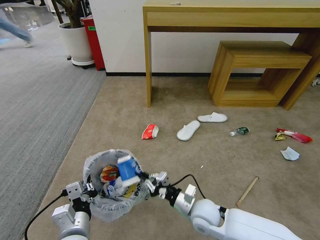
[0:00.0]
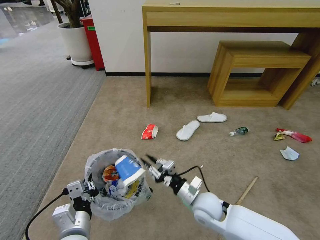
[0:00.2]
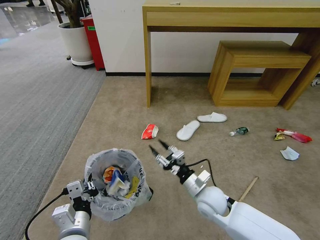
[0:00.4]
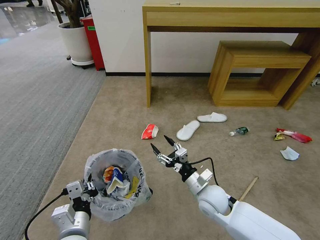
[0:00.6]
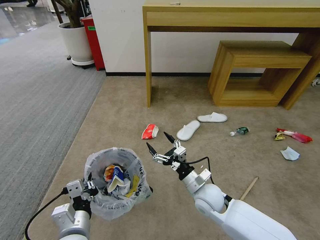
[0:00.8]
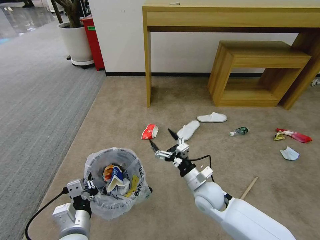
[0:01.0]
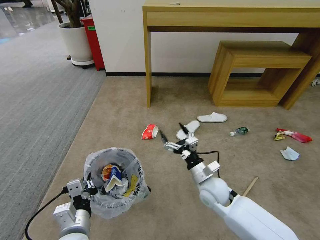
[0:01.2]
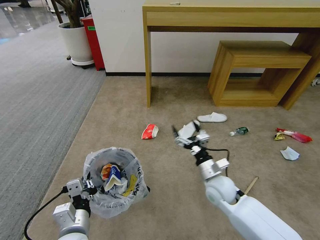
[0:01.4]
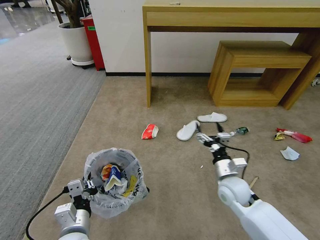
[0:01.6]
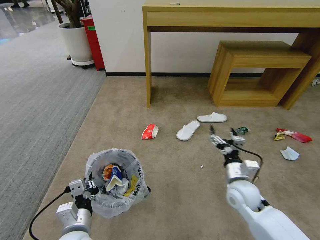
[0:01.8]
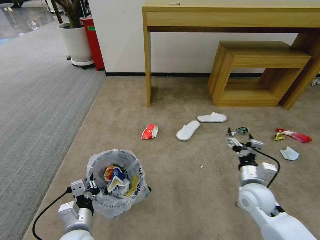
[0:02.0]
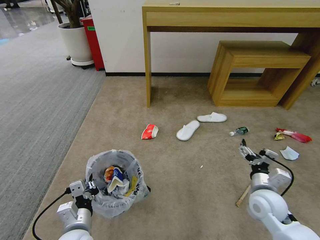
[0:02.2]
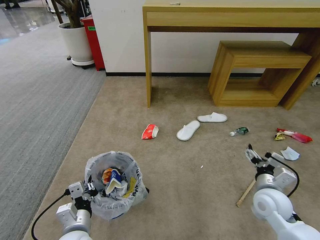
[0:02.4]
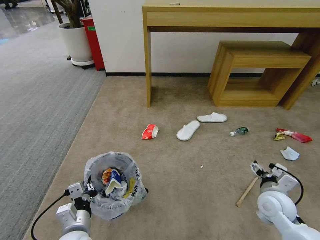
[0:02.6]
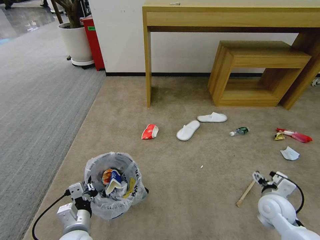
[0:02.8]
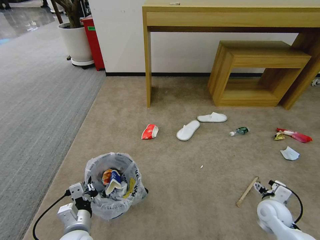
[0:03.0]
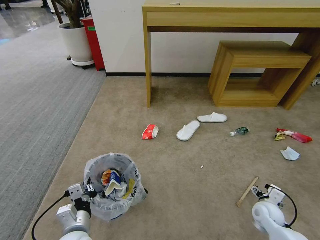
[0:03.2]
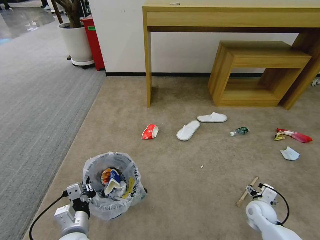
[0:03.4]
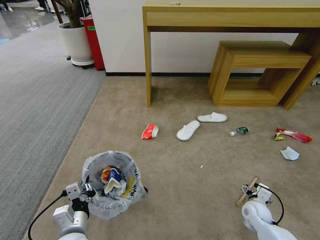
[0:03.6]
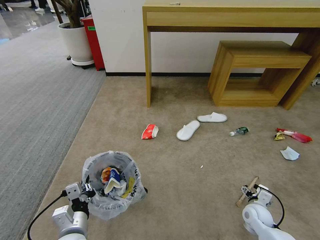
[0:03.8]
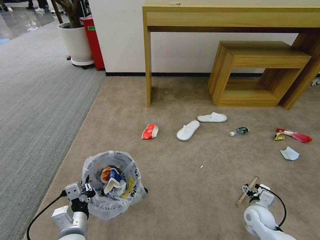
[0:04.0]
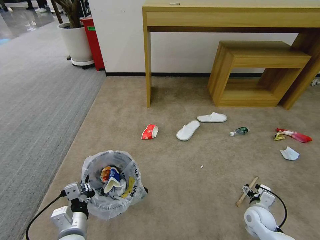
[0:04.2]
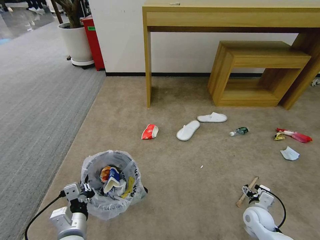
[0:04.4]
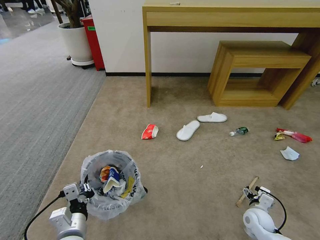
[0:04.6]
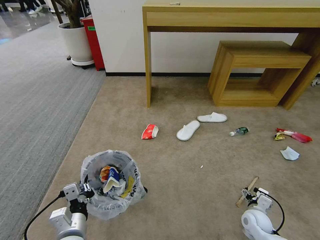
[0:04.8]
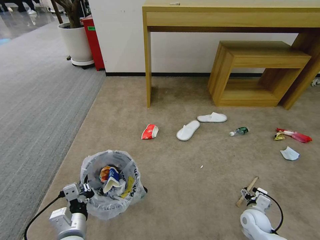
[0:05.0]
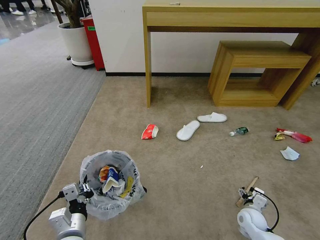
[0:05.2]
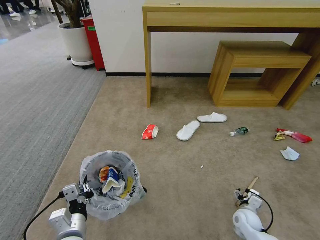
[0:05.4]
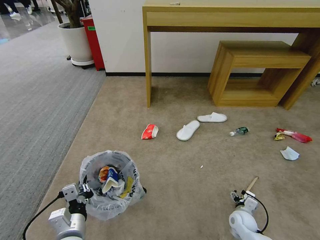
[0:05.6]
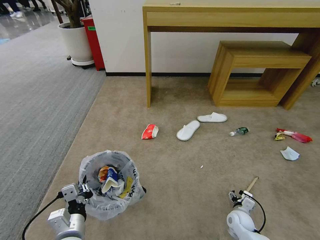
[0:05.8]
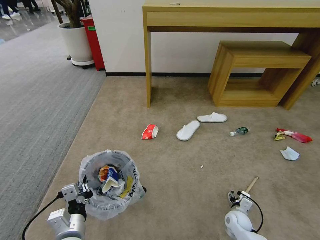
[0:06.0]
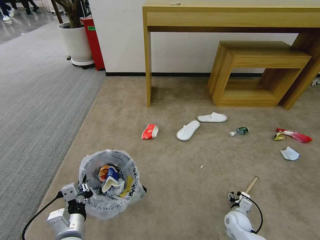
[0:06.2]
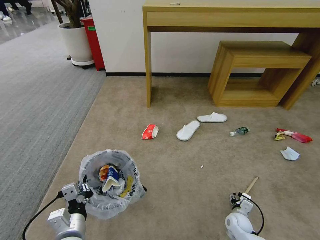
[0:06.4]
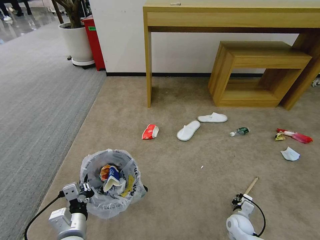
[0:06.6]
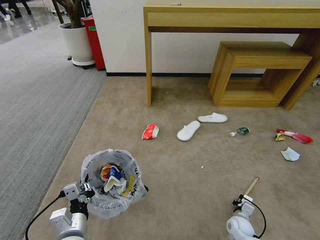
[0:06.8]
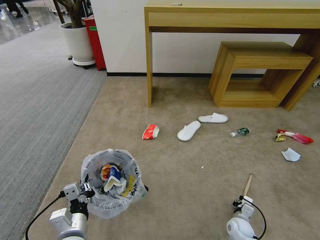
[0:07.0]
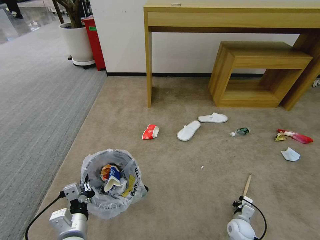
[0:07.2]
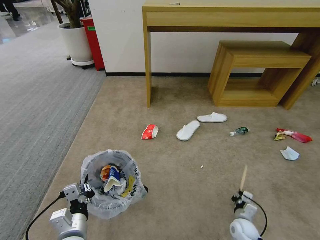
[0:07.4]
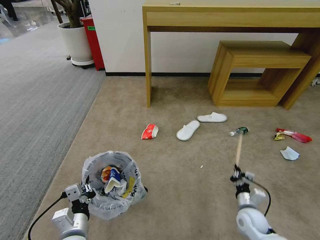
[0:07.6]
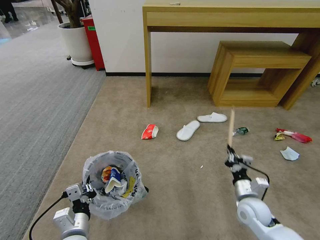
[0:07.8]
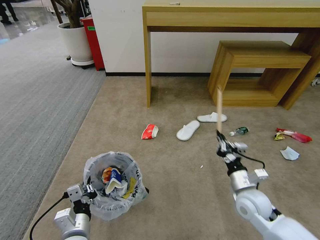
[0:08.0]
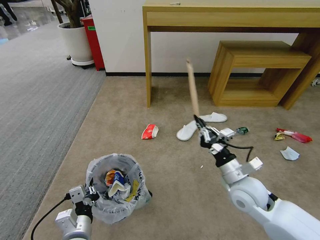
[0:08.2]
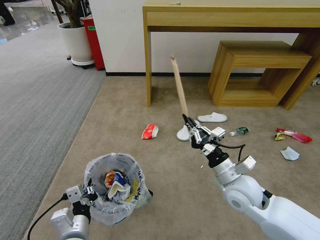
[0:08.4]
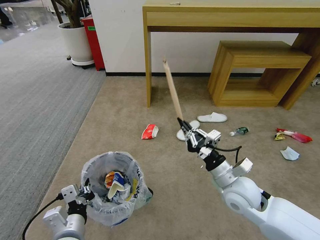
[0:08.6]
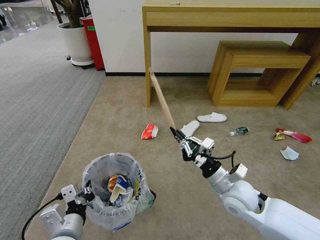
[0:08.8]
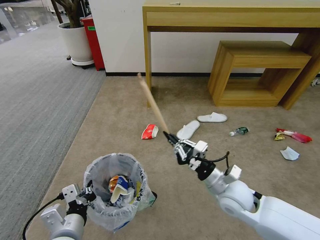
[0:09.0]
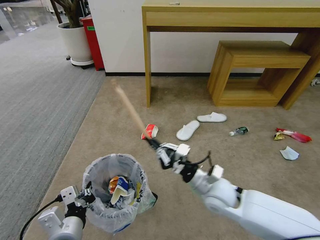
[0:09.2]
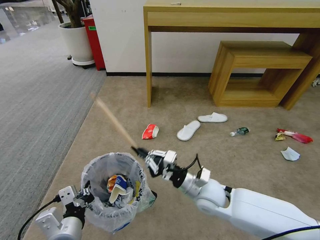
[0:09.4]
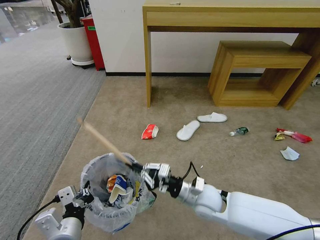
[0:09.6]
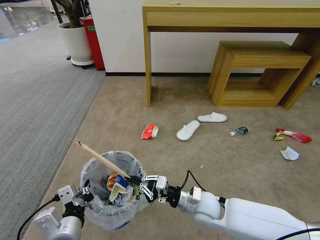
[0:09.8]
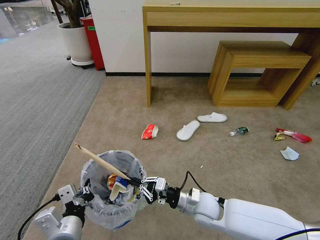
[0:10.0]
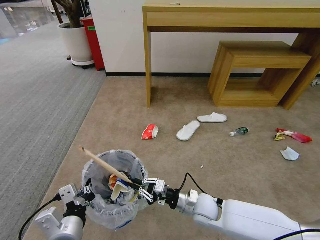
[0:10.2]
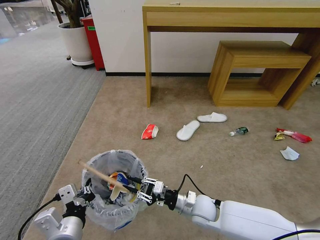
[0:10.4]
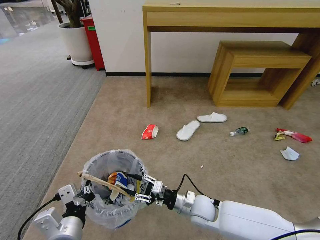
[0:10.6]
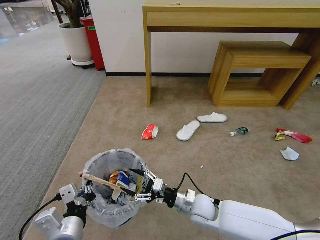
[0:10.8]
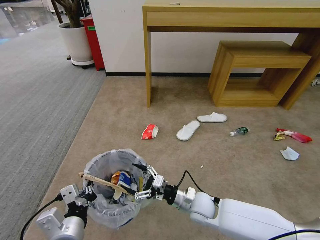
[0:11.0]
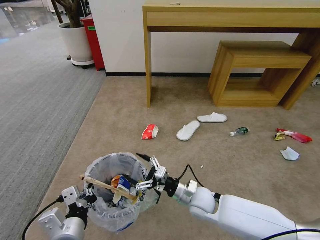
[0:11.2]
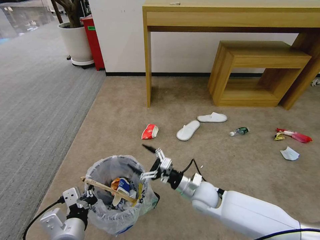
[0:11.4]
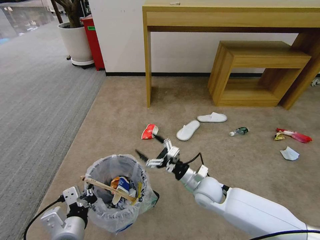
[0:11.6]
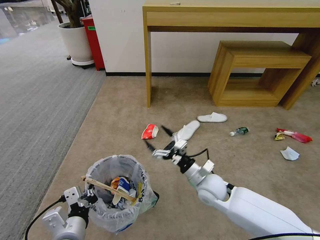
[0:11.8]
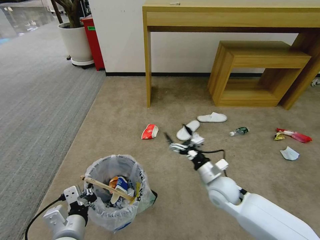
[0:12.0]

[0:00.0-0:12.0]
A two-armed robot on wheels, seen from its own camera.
Task of the whole recording: Pick up the trash bin and place the garbage on the floor into it.
0:00.0 to 0:01.6: The right gripper moves to the right and forward, roughly 10 cm, and opens.
0:01.6 to 0:03.0: The right gripper is displaced to the right and downward by approximately 20 cm.
0:03.0 to 0:04.4: The right gripper goes about 5 cm downward.
0:04.4 to 0:06.0: The right gripper moves downward, some 10 cm.
0:06.0 to 0:07.6: The right gripper moves upward, roughly 5 cm, and closes its fingers.
0:07.6 to 0:09.0: The right gripper moves upward and to the left, roughly 25 cm, while the left gripper shifts about 5 cm upward.
0:09.0 to 0:10.4: The right gripper heads downward and to the left, covering roughly 15 cm.
0:10.4 to 0:12.0: The right gripper shifts roughly 10 cm upward and to the right, and opens up.

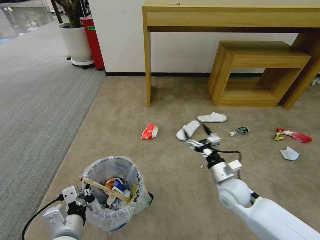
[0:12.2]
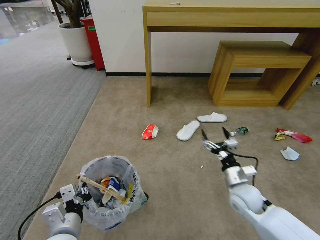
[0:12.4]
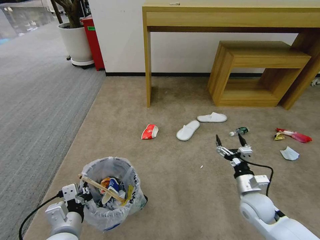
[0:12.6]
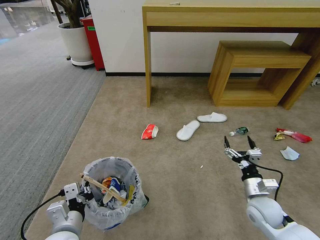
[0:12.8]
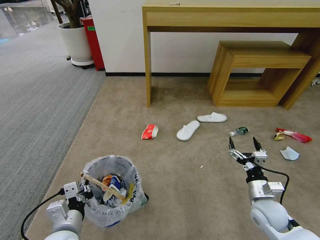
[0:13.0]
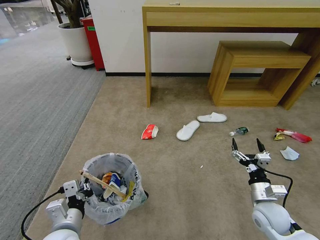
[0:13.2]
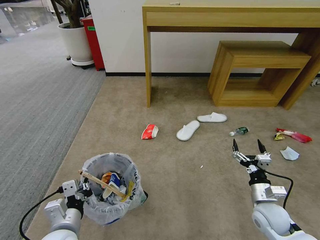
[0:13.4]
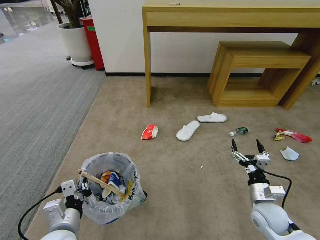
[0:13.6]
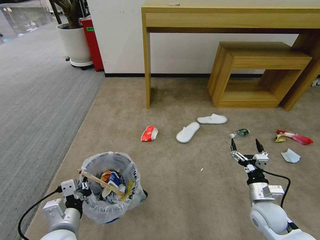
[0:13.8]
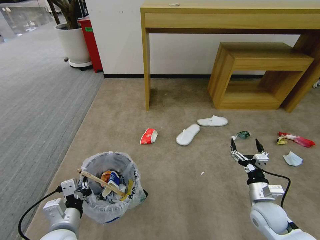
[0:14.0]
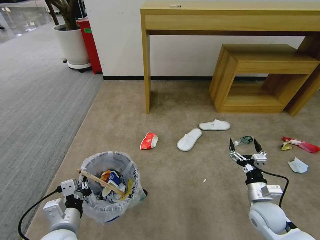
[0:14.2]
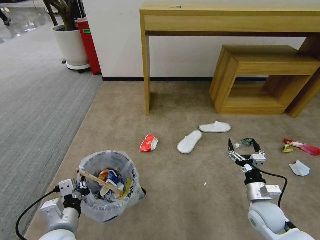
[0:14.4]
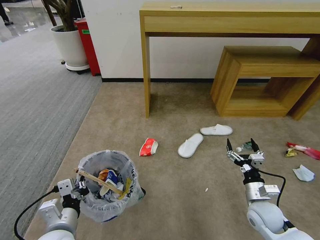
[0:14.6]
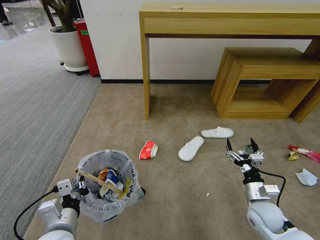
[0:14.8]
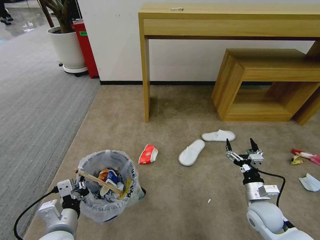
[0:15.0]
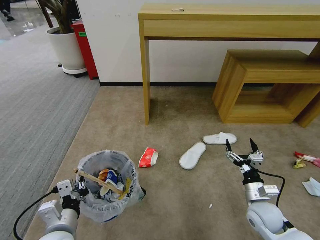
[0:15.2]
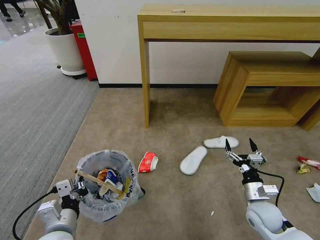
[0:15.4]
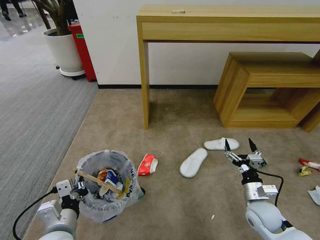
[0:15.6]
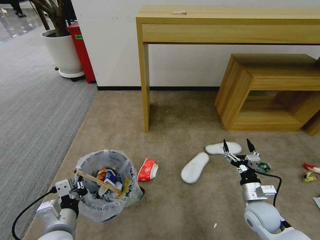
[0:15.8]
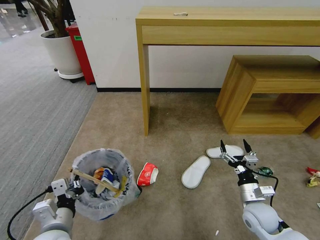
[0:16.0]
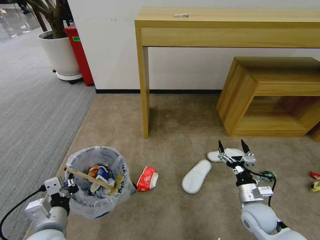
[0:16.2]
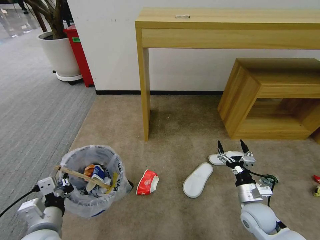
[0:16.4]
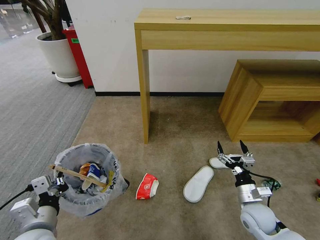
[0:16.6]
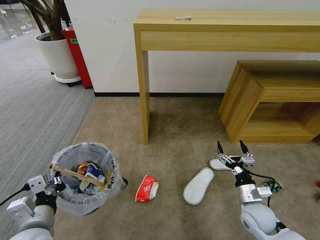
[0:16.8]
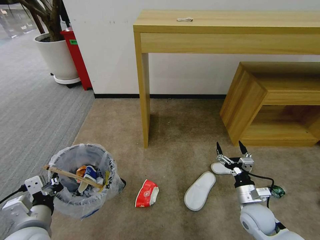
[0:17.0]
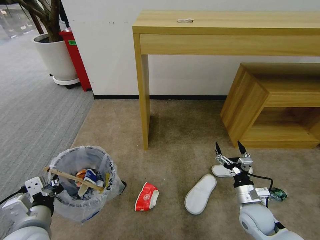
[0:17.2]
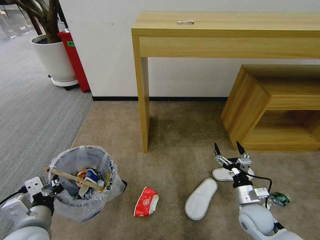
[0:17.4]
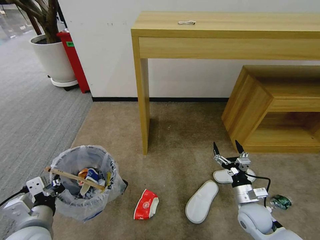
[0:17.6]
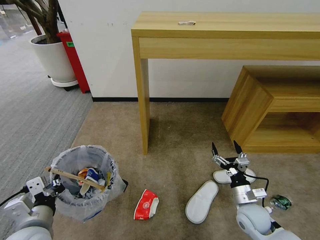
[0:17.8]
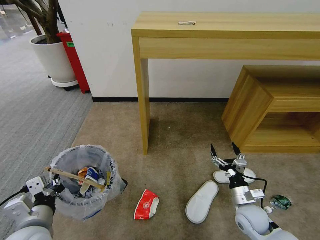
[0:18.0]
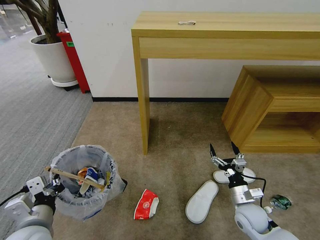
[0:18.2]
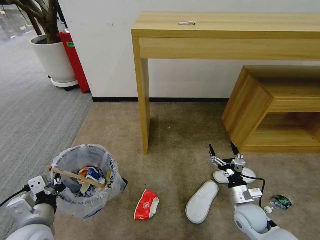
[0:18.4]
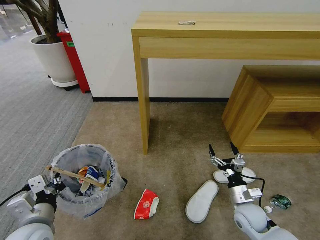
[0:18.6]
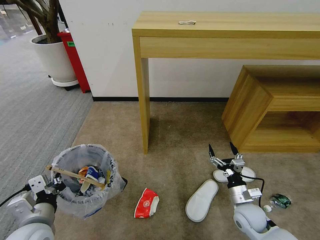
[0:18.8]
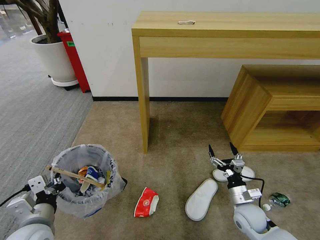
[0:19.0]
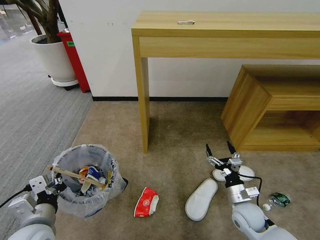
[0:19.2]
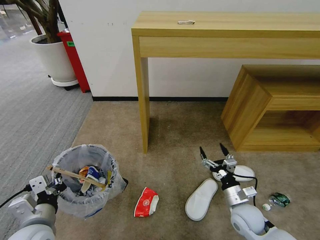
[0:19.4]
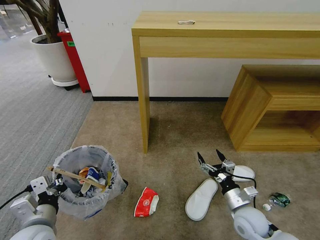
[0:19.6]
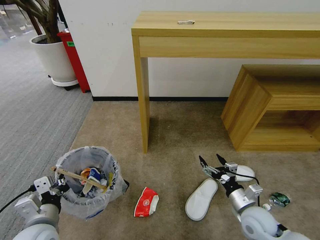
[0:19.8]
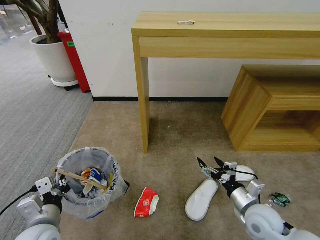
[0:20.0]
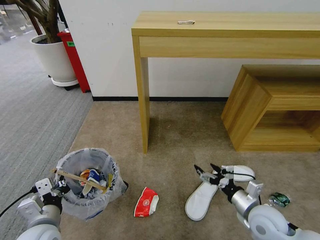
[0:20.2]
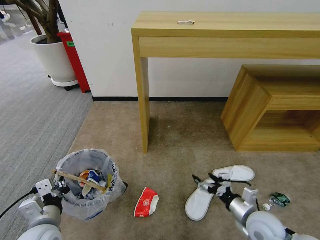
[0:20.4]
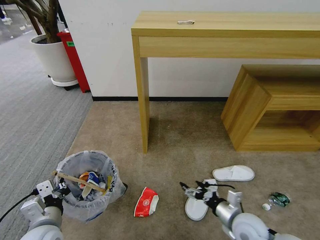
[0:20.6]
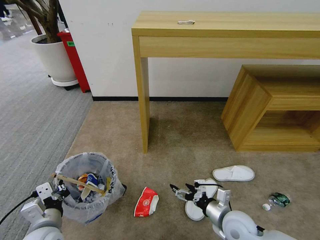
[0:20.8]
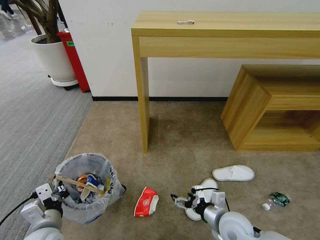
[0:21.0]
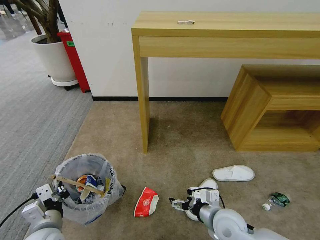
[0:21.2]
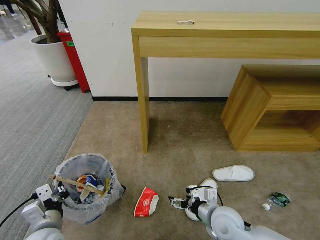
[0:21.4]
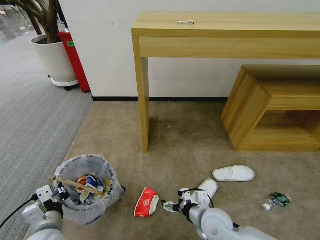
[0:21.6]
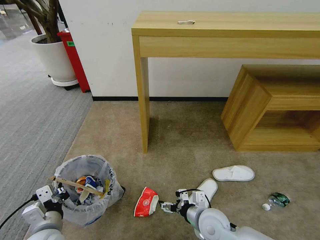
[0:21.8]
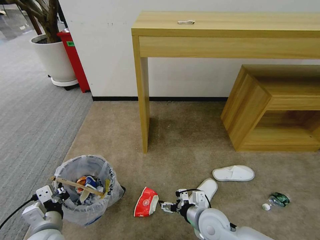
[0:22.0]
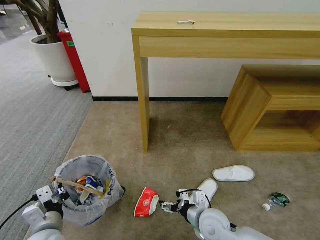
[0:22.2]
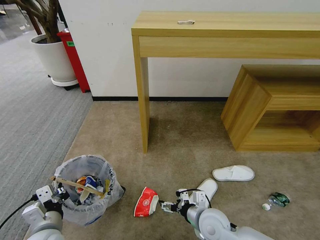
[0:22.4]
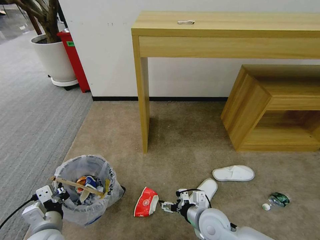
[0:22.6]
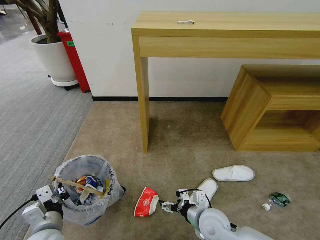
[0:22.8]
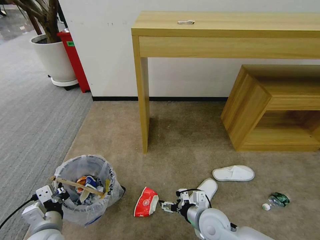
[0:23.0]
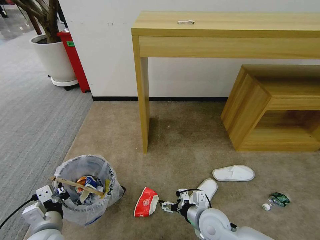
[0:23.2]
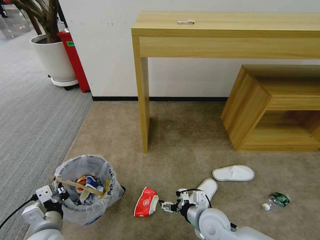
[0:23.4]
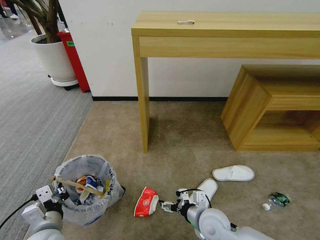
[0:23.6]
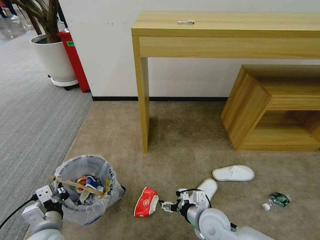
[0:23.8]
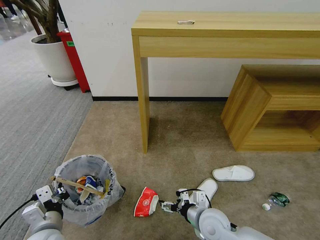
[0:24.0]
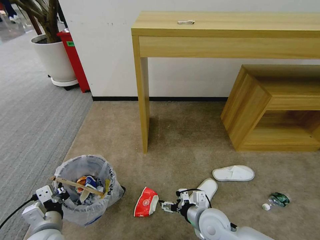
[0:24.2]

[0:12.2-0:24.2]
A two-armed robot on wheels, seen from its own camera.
Task of the whole recording: Pick up the trash bin and place the garbage on the floor into it.
0:12.2 to 0:13.8: The right gripper moves to the right and backward, approximately 10 cm.
0:19.8 to 0:21.2: The right gripper is displaced to the left by approximately 10 cm.
0:21.2 to 0:22.6: There are only small adjustments of the grippers.
0:22.6 to 0:24.2: Both grippers stay about where they are.
